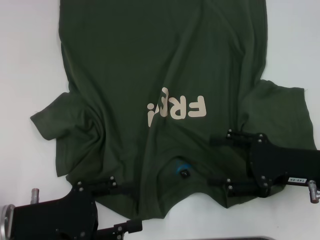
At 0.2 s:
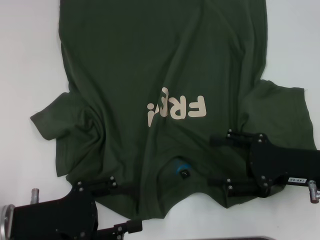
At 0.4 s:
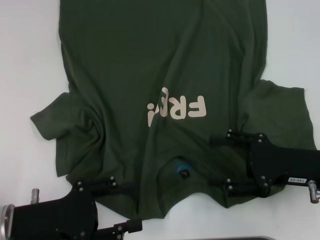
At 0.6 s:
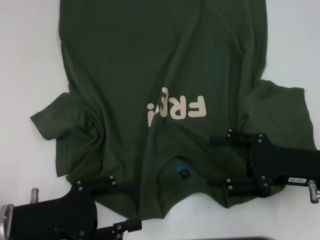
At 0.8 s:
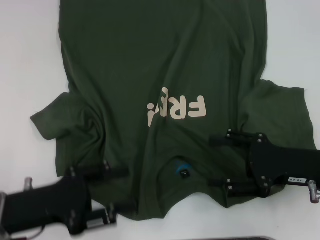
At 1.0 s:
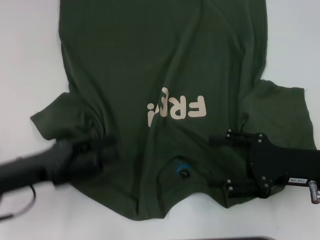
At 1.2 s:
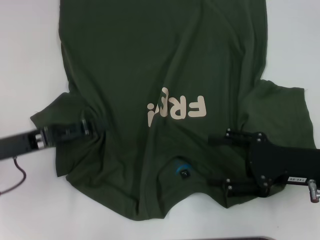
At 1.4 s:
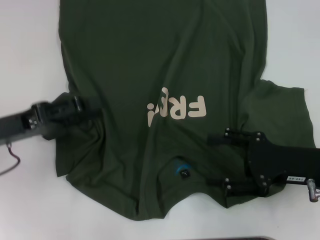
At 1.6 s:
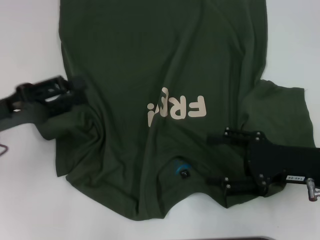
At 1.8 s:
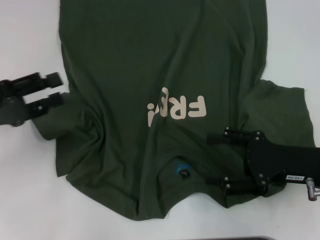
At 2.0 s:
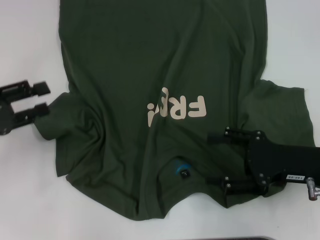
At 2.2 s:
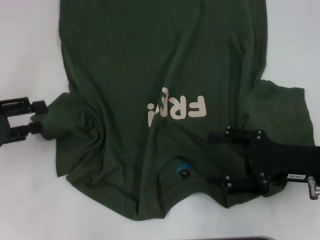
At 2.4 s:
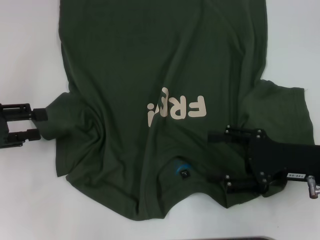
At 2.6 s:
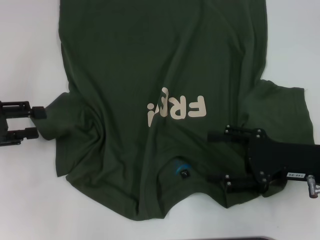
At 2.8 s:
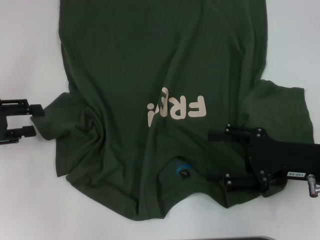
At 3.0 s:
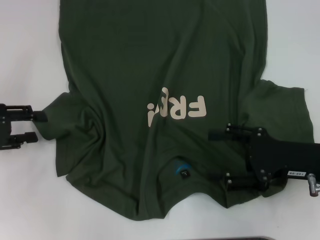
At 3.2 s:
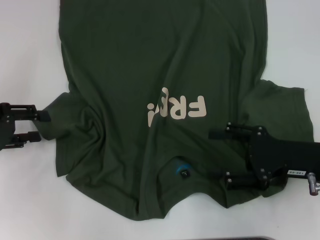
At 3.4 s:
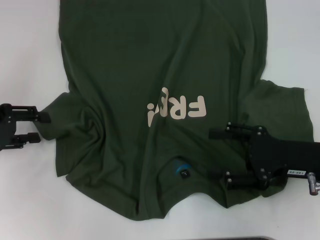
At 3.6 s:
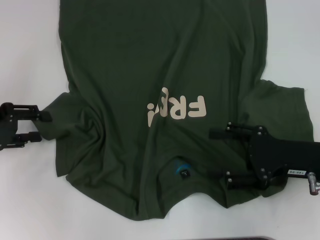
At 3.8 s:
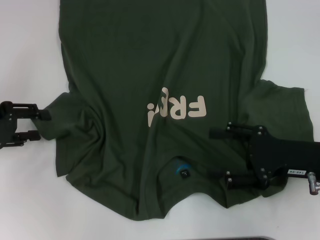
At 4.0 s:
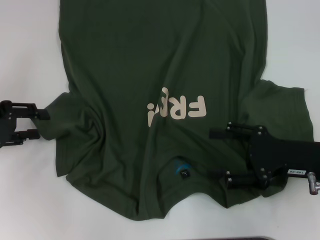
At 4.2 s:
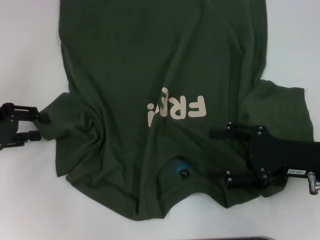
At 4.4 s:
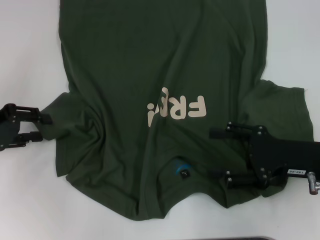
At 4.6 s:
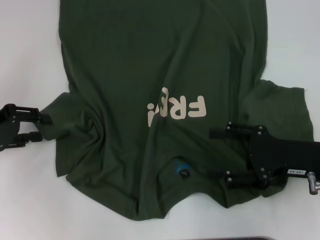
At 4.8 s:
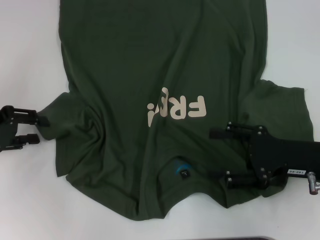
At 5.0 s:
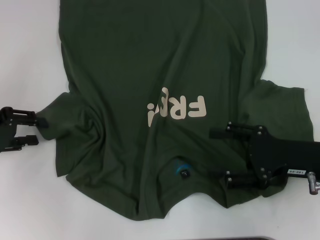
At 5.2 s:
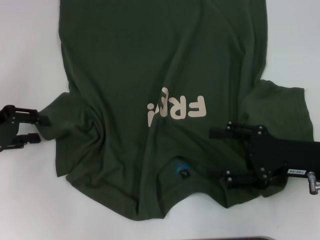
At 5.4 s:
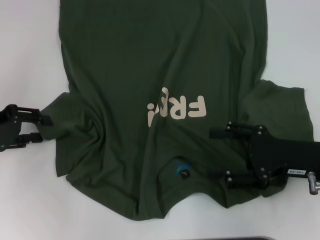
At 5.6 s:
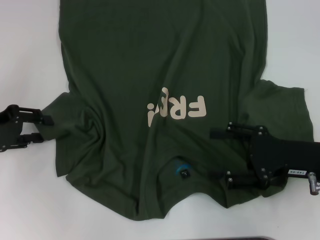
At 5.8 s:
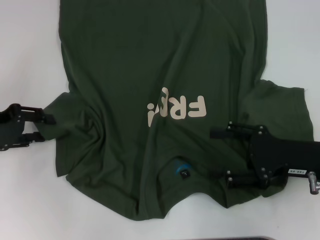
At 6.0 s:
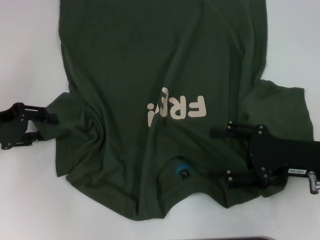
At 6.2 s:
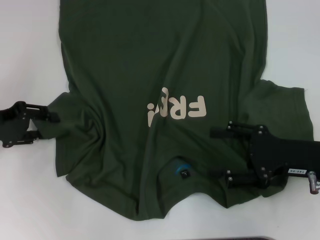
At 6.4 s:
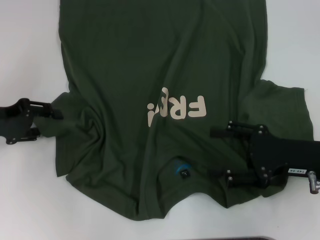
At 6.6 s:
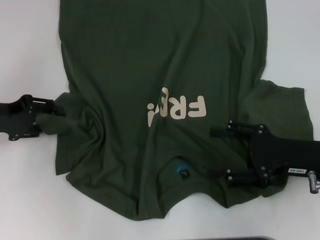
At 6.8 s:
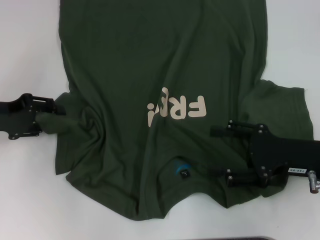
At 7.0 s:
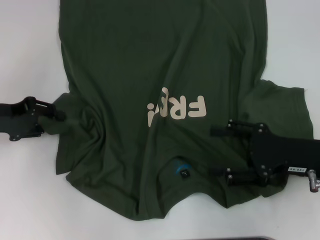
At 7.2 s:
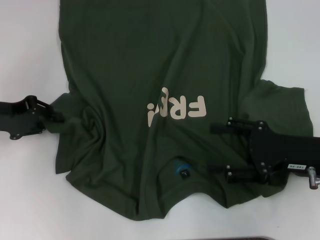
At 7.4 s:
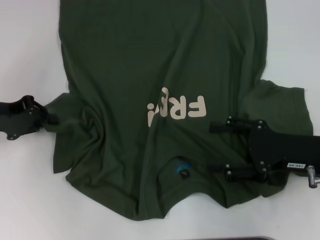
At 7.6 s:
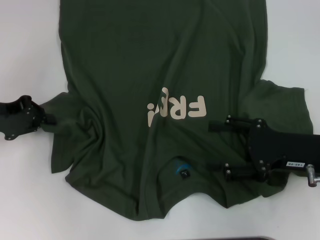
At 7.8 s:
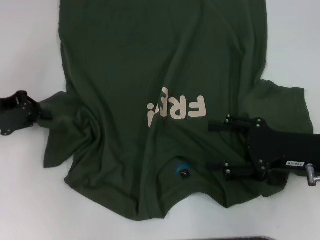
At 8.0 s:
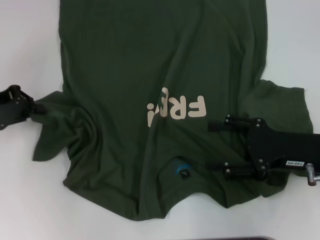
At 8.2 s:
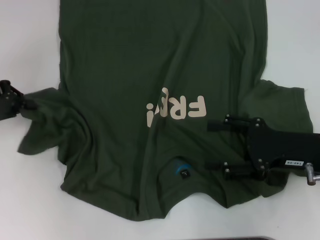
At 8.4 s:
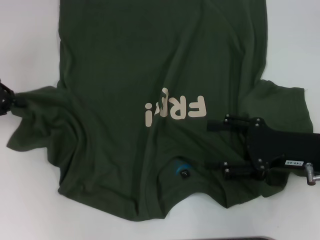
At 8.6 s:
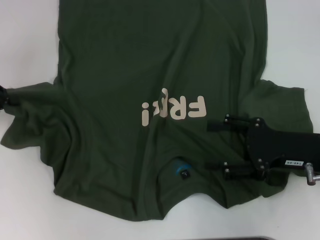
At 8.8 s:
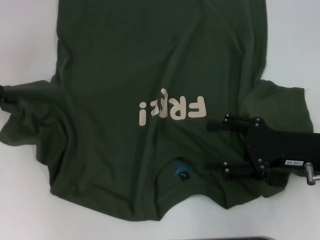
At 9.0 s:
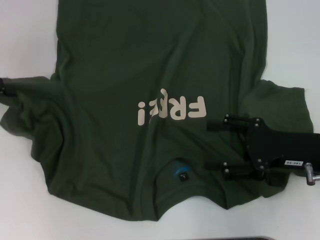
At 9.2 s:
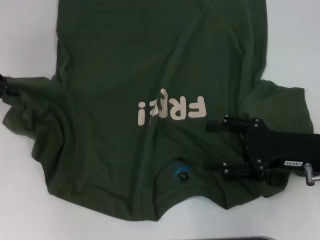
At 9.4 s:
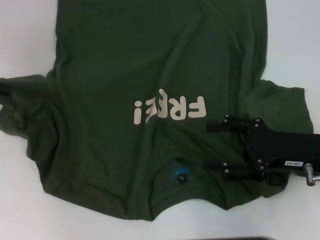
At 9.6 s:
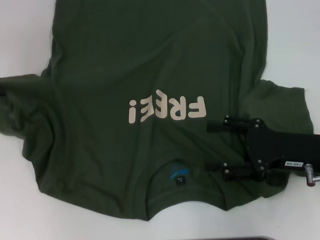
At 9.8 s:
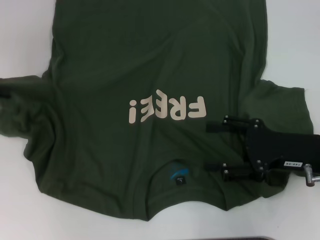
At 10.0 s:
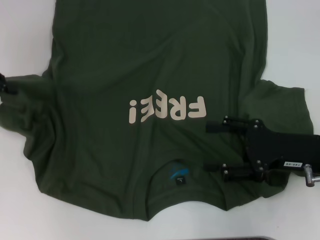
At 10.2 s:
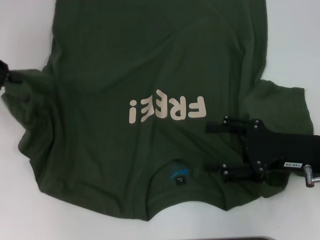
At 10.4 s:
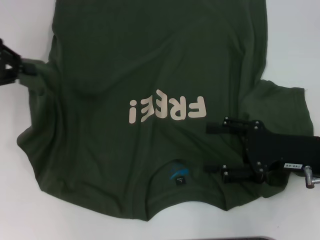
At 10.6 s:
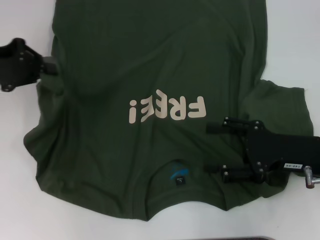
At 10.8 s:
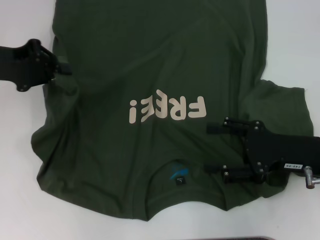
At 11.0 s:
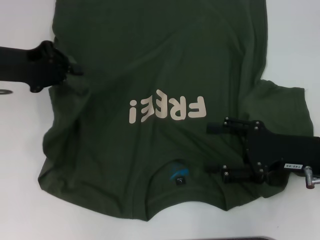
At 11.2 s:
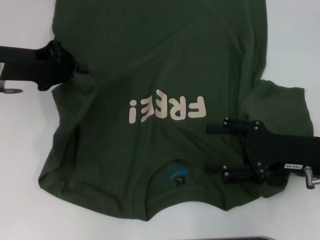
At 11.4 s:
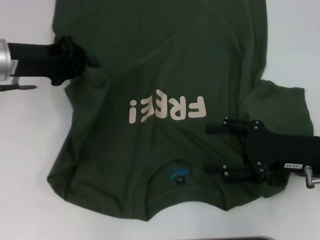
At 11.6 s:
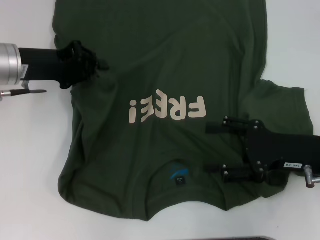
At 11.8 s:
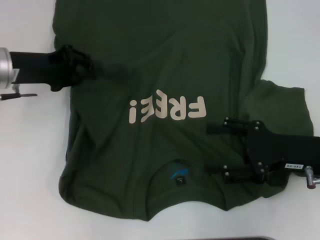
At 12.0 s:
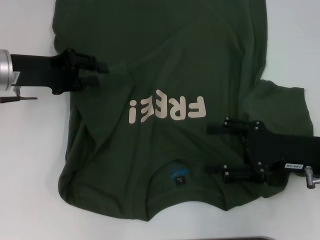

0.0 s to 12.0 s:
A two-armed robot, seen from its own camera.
0.0 to 1.6 s: The left gripper goes approximately 10 cm forward and upward.
1.6 to 3.0 s: The left gripper goes about 5 cm to the left.
3.0 to 4.4 s: There are only small adjustments of the grippers.
4.4 to 6.0 s: Both grippers stay put.
6.0 to 7.6 s: The left gripper closes its fingers.
7.6 to 9.0 s: The left gripper moves upward, about 5 cm.
9.0 to 10.4 s: The grippers move only a little.
10.4 to 12.0 s: The left gripper moves to the right and downward, some 10 cm.

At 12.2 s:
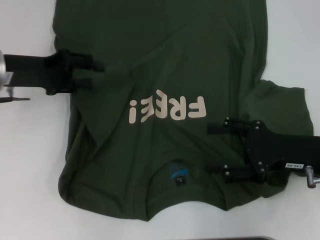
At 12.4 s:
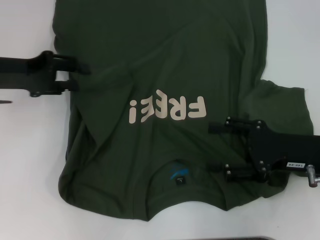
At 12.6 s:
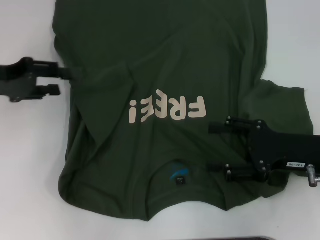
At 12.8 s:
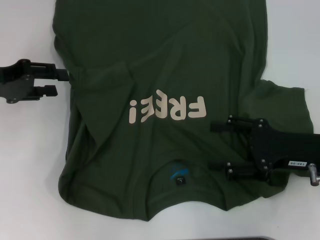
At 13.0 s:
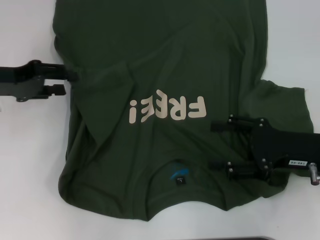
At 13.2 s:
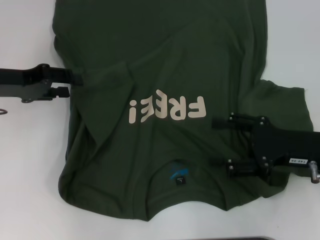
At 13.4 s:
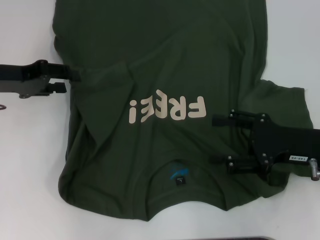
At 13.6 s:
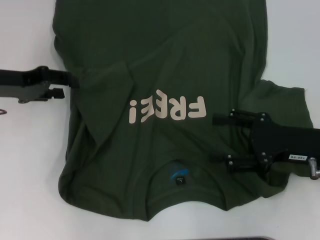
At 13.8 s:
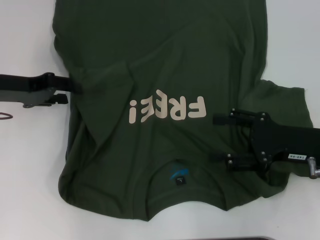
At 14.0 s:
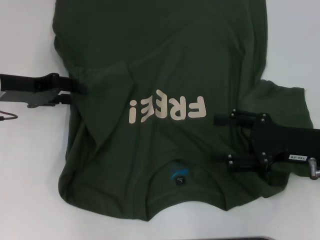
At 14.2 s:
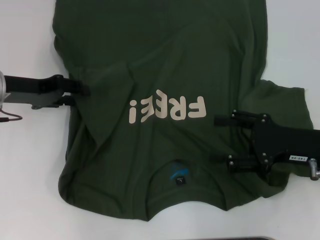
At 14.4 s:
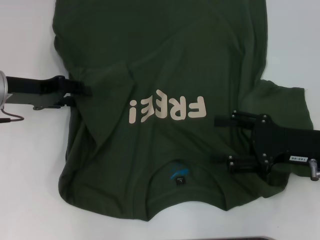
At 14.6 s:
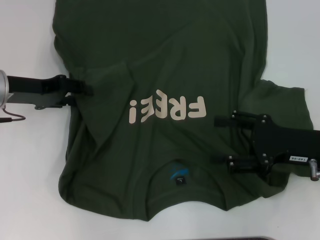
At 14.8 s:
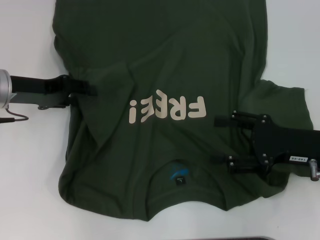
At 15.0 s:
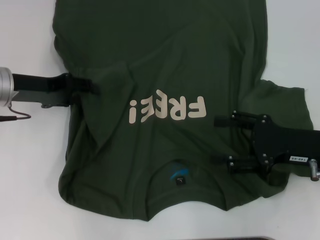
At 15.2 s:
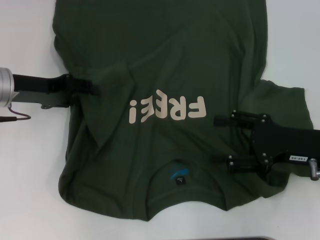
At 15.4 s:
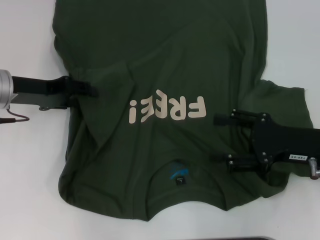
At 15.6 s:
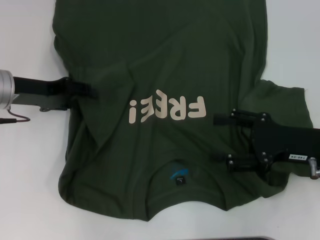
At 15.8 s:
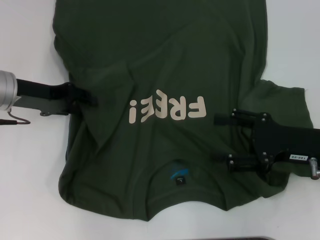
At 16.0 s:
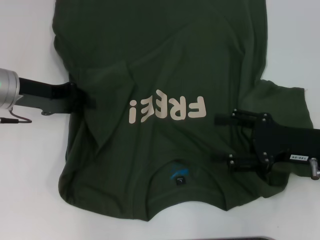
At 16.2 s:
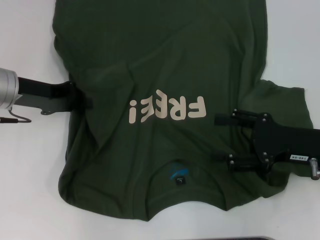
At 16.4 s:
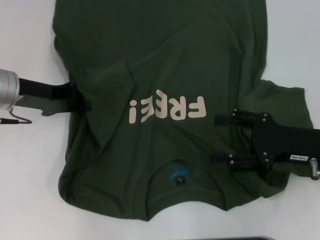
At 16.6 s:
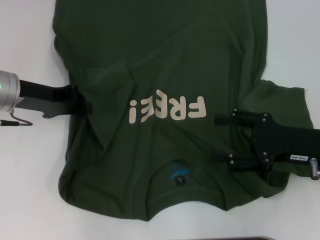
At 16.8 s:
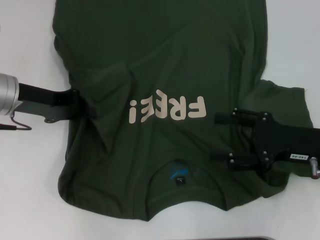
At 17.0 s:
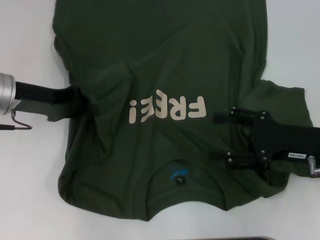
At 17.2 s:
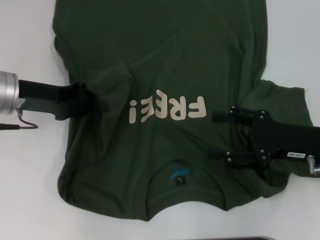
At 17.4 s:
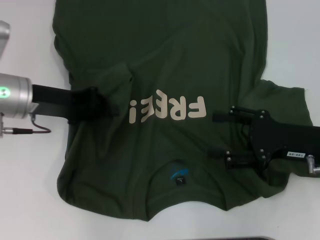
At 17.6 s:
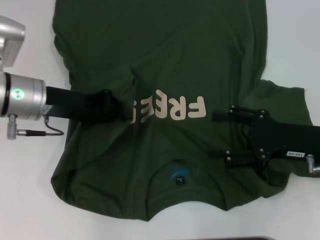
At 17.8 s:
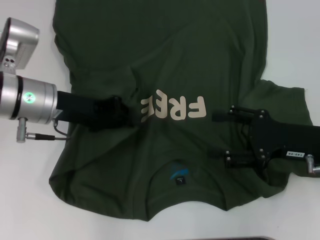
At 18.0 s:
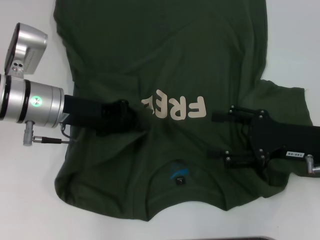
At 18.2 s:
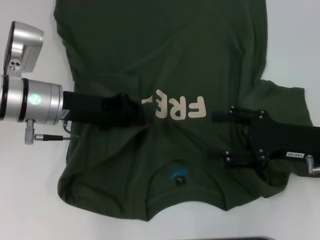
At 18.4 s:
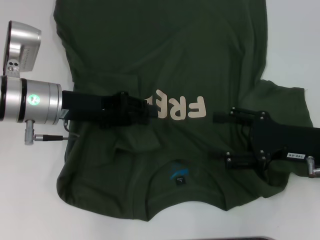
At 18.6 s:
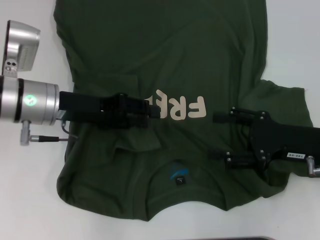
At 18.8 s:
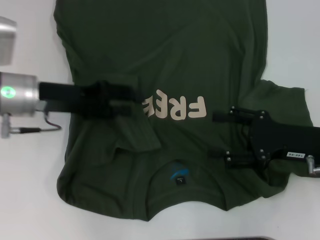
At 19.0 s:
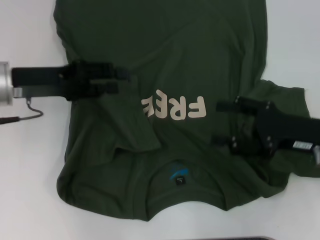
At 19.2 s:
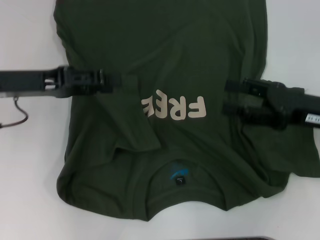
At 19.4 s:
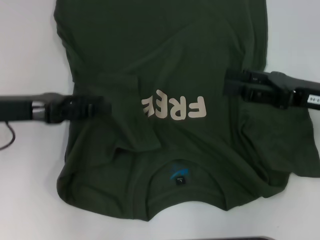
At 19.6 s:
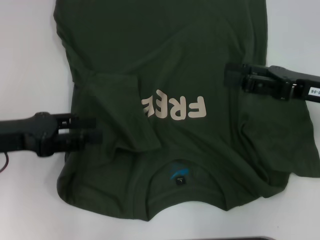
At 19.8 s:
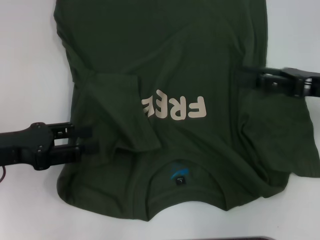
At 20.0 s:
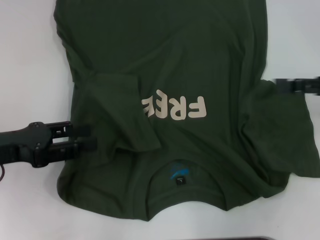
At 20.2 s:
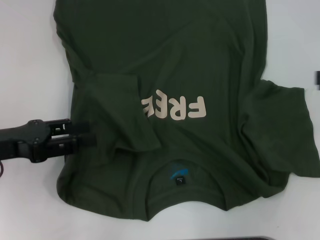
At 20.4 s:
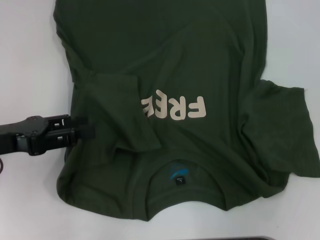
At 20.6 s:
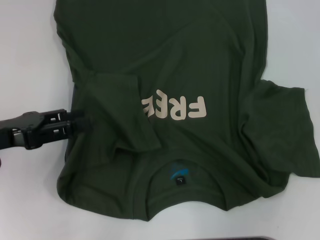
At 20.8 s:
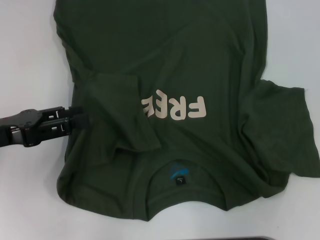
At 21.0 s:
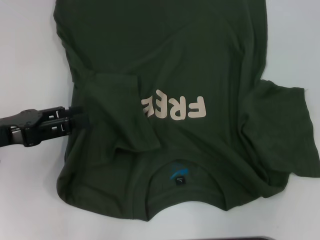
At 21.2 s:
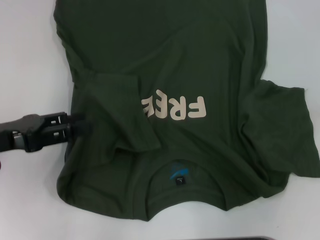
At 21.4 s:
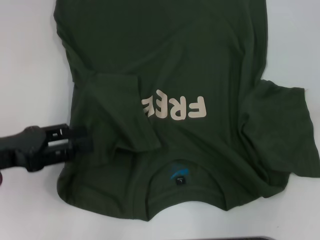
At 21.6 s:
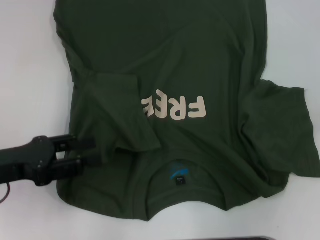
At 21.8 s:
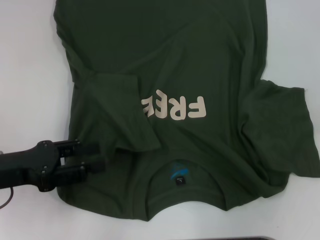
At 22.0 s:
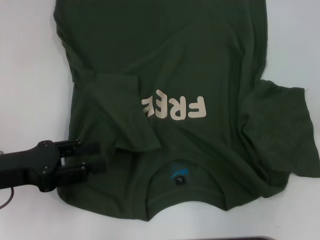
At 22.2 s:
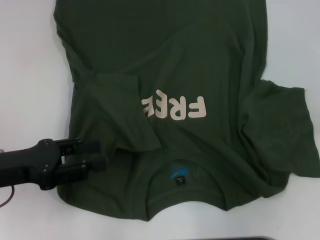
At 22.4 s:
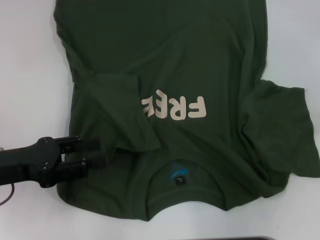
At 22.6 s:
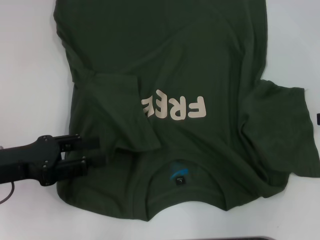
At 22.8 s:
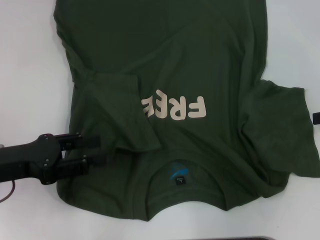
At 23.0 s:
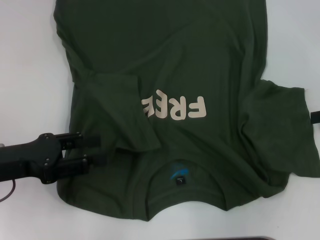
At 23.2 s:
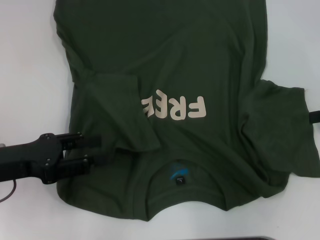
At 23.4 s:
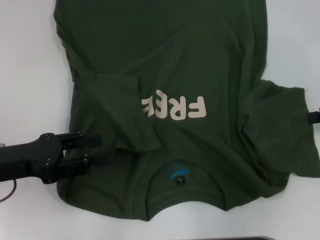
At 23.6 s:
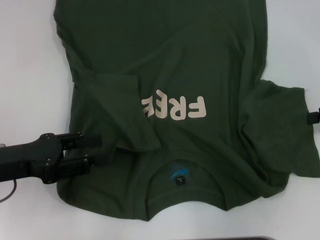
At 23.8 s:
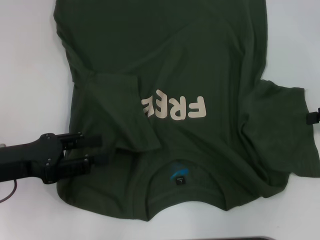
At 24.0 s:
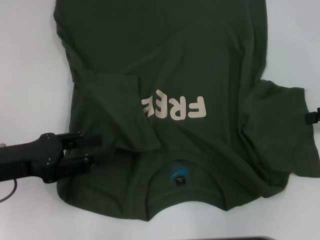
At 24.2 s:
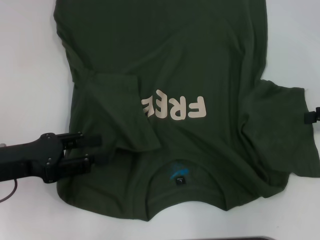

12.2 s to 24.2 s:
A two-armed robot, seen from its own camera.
Step, 12.2 to 18.6 s: Fold the bottom left sleeve with your left hand.
12.2 to 15.2 s: There are only small adjustments of the grippers.
15.2 to 16.6 s: The left gripper closes its fingers.
16.6 to 18.2 s: The left gripper is displaced to the right by roughly 5 cm.
18.2 to 19.8 s: The right gripper is displaced upward by about 5 cm; the left gripper shifts approximately 15 cm to the left and backward, and opens its fingers.
19.8 to 21.2 s: The right gripper shifts approximately 15 cm to the right.
22.6 to 24.2 s: There are only small adjustments of the grippers.
